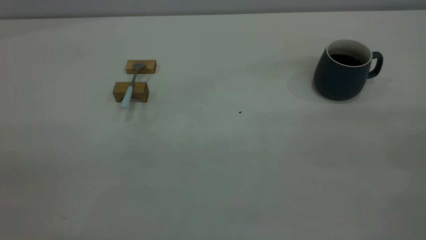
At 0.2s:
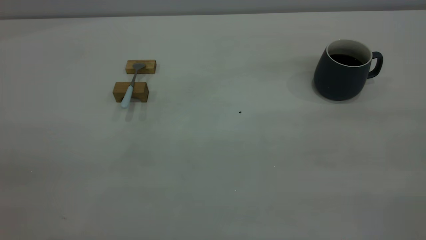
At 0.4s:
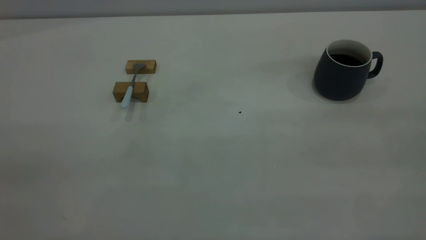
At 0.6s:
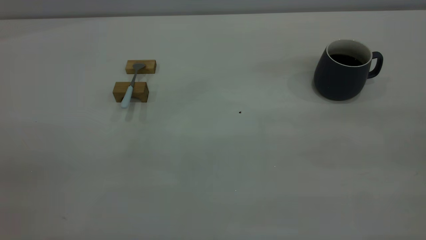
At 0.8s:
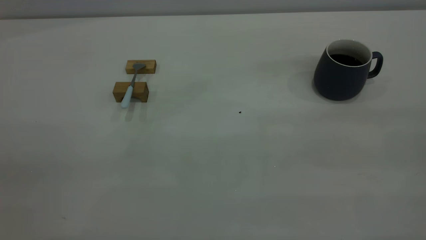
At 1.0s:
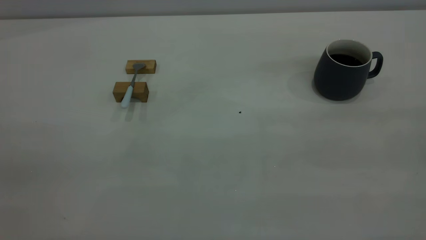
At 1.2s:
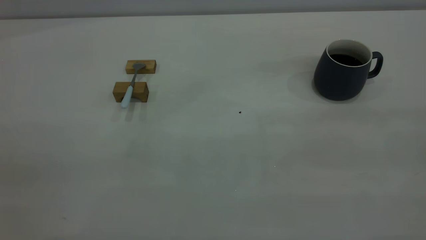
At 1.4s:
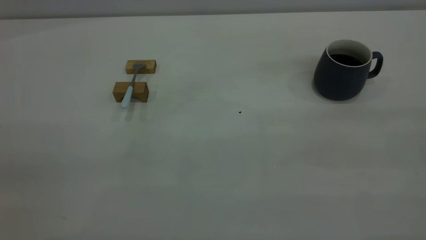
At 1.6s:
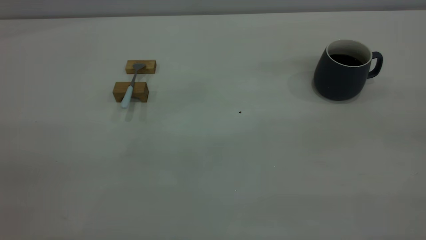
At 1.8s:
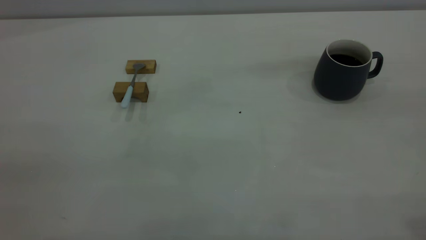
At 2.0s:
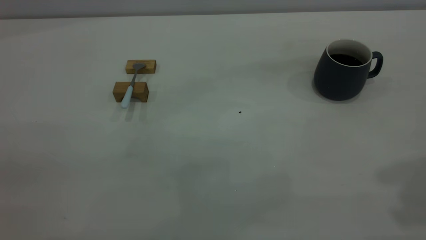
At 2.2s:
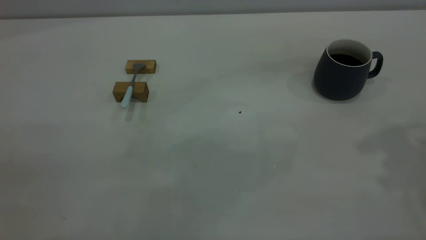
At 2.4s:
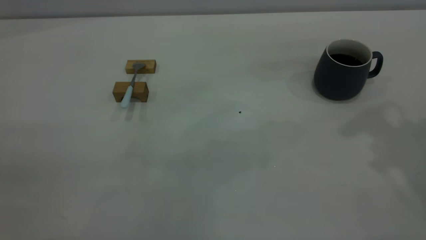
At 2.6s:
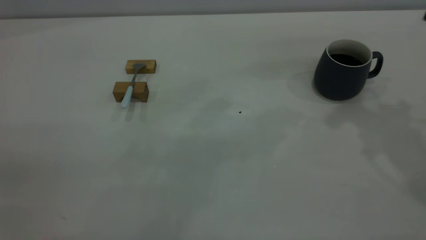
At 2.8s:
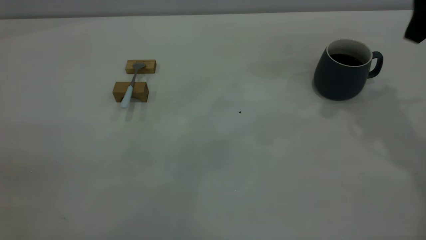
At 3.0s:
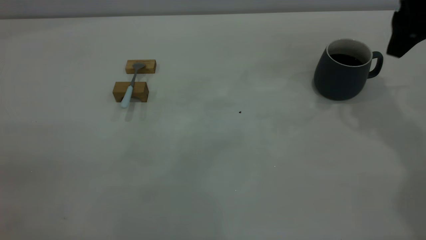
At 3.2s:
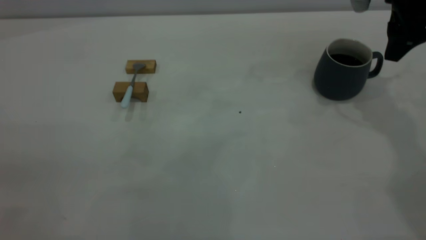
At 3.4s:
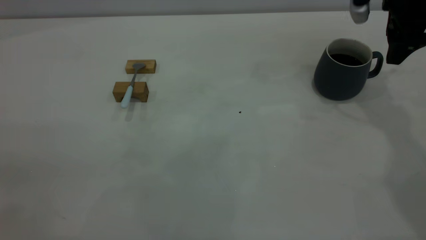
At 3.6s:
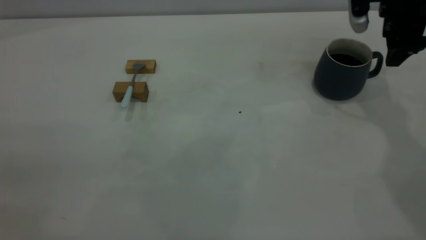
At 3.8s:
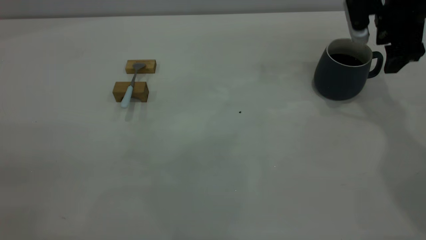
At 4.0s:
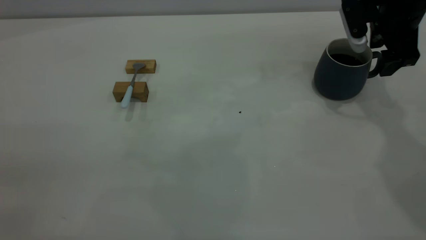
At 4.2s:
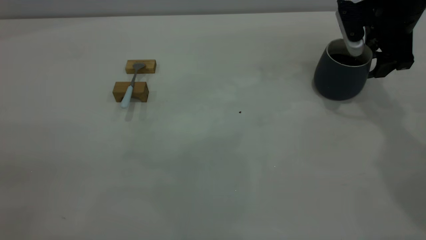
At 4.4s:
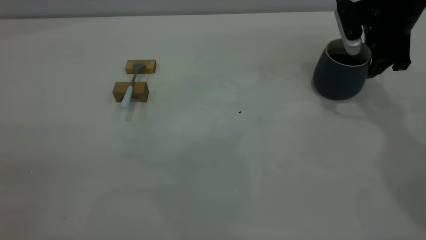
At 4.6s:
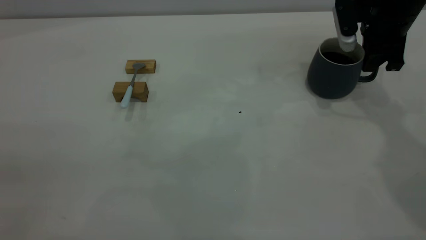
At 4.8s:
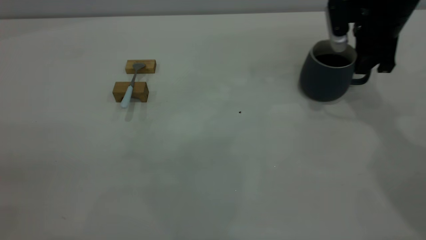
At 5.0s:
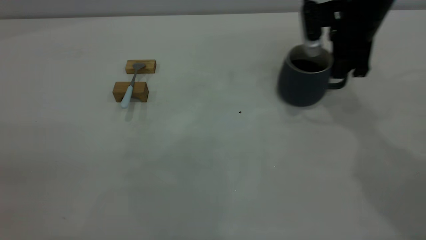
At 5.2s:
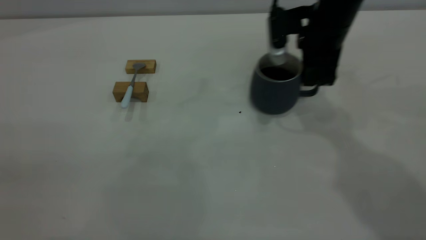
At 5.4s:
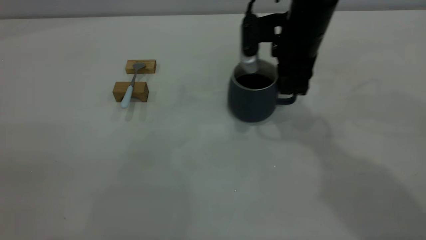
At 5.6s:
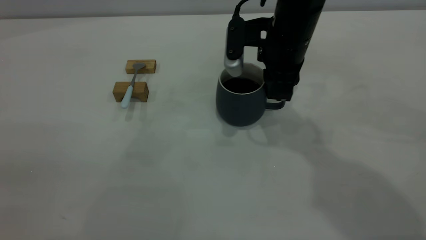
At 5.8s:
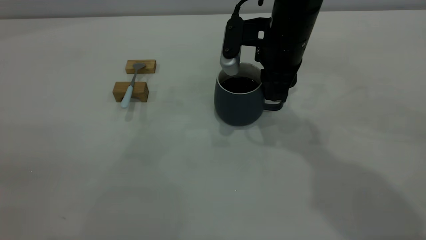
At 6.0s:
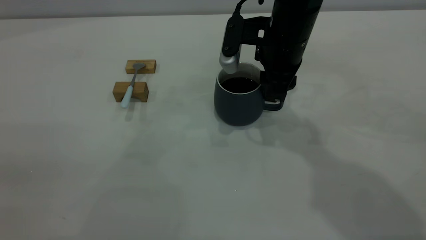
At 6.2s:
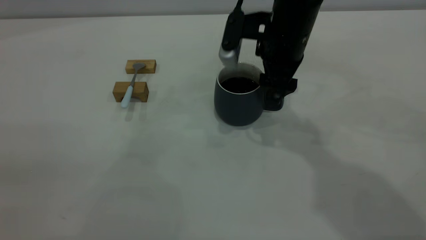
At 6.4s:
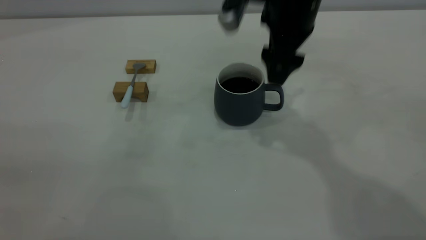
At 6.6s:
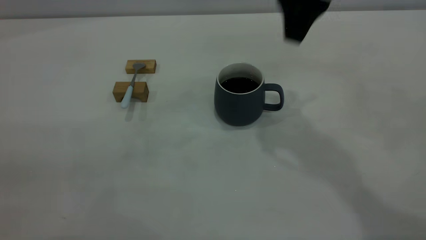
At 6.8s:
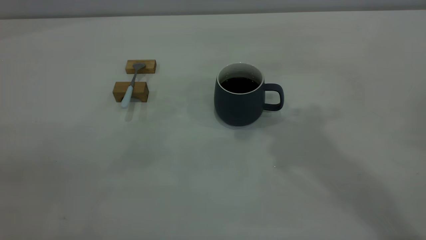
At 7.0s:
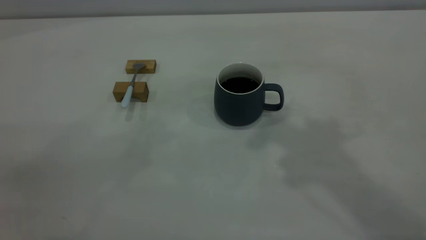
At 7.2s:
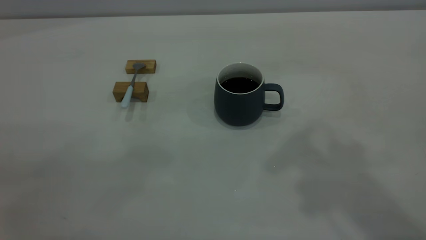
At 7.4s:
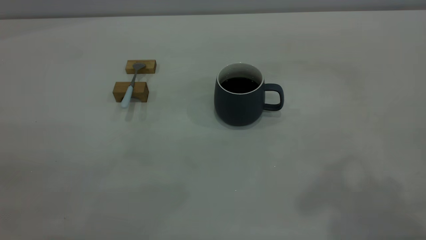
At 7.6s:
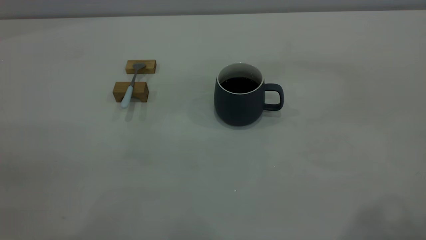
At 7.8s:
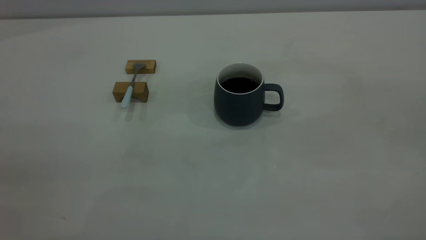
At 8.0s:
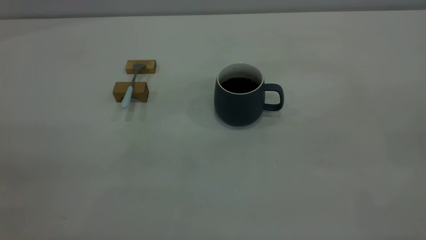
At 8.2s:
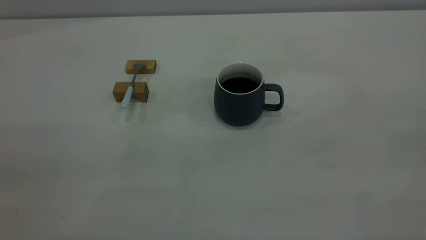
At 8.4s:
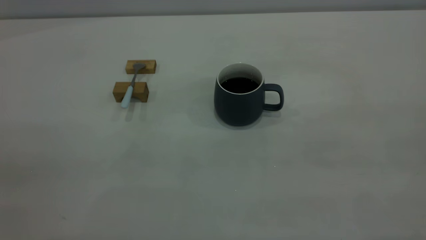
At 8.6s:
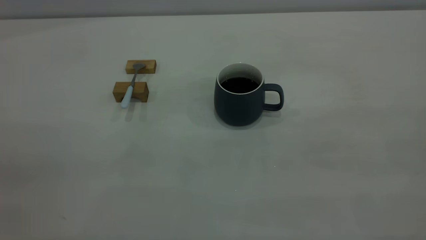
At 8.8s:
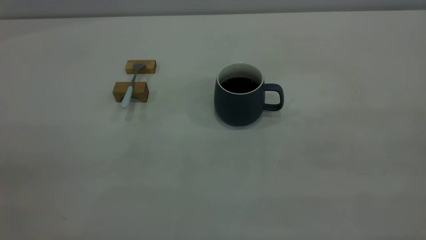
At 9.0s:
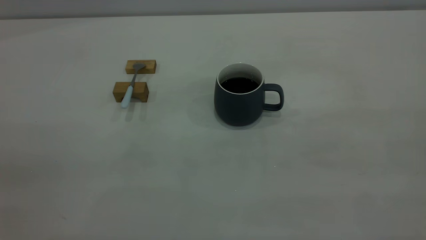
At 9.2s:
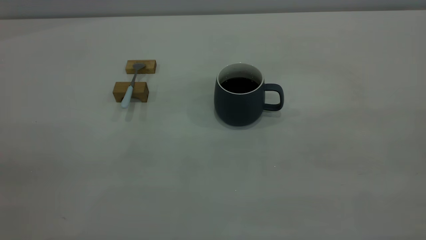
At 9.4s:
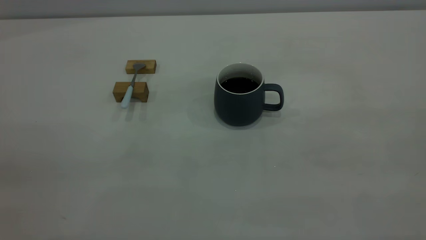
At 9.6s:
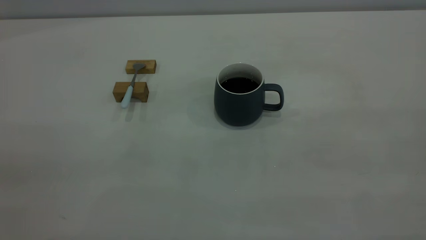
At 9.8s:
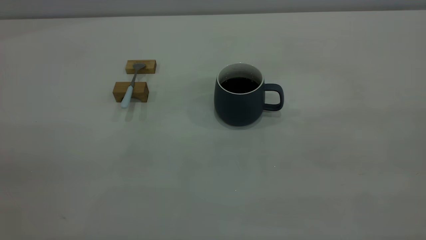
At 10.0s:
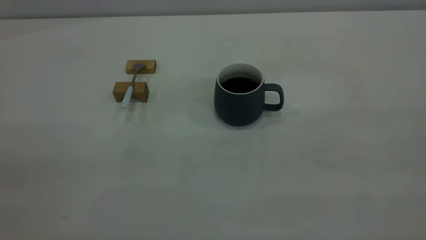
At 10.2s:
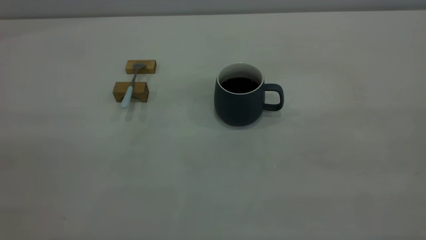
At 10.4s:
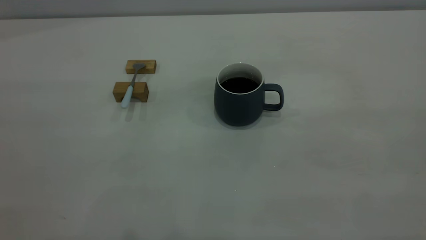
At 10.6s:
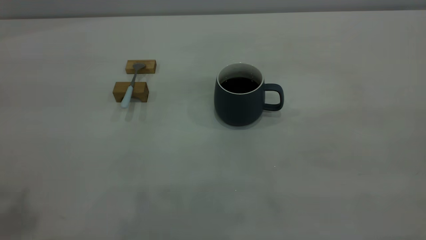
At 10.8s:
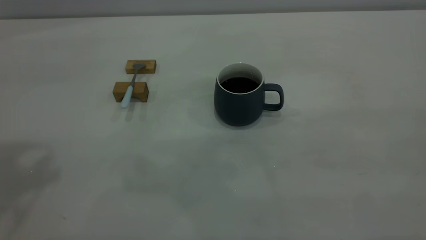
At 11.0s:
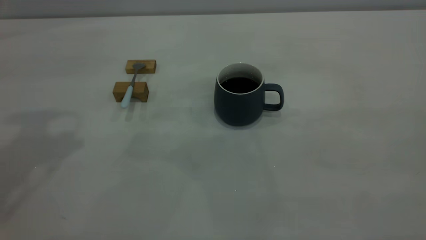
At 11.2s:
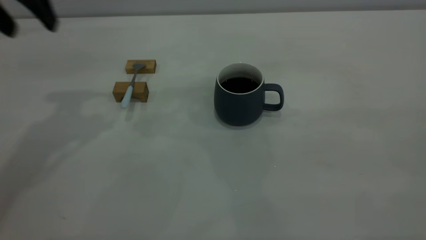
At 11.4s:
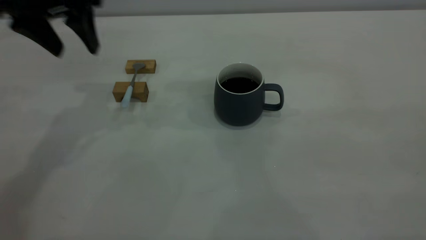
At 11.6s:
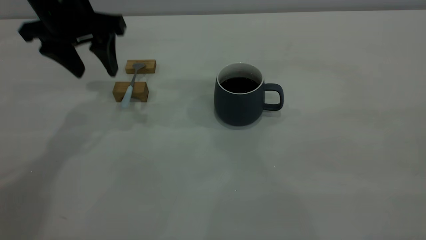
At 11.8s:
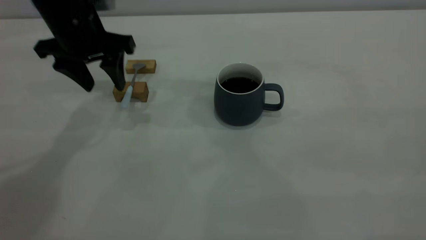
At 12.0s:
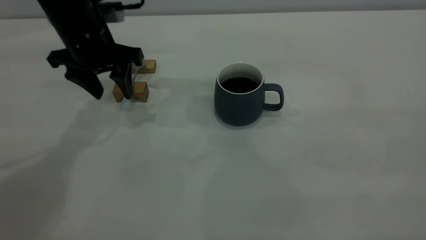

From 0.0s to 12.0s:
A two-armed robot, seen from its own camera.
Step, from 0.0s to 6.4s: Move the cup with coffee to the center of view.
From 1.6s to 3.0s: The right gripper moves forward and downward, some 40 cm.
From 3.0s to 4.4s: The right gripper shifts approximately 10 cm downward, and closes its fingers.
From 4.4s to 6.0s: The right gripper goes about 20 cm to the left.
From 6.0s to 7.6s: The right gripper moves upward, backward and to the right, approximately 40 cm, and opens its fingers.
From 10.4s to 12.0s: The left gripper is displaced forward and downward by approximately 40 cm.

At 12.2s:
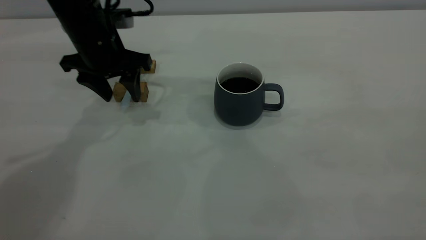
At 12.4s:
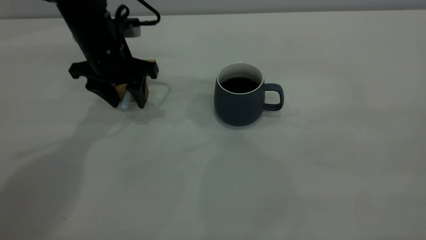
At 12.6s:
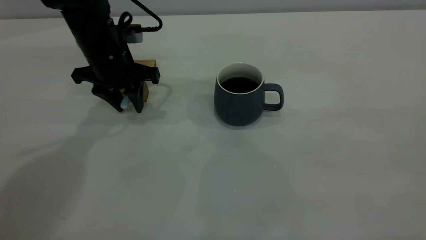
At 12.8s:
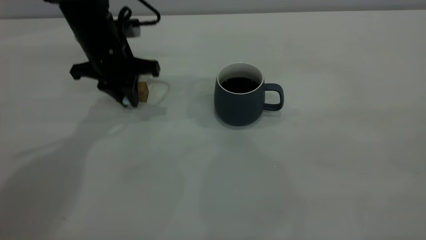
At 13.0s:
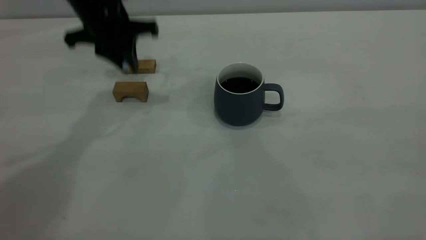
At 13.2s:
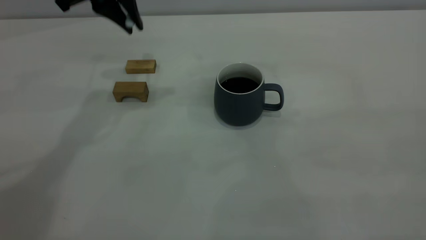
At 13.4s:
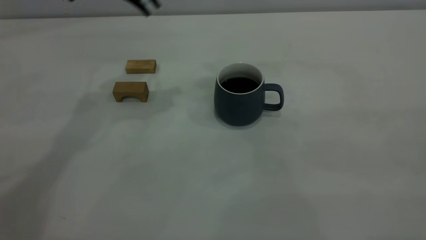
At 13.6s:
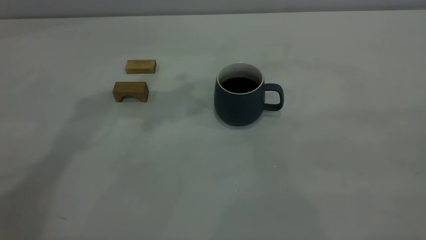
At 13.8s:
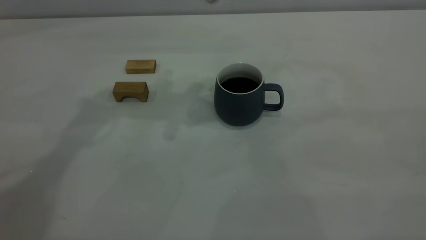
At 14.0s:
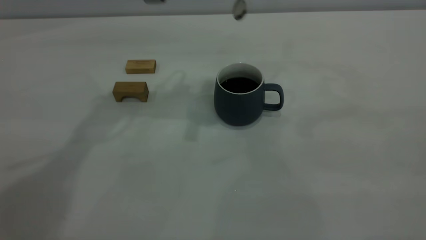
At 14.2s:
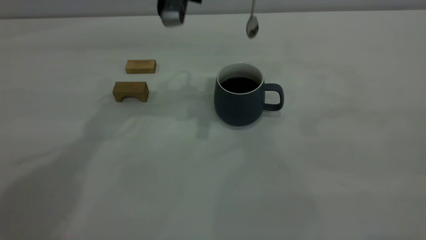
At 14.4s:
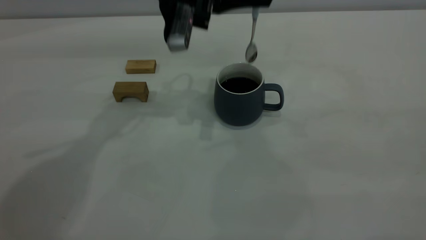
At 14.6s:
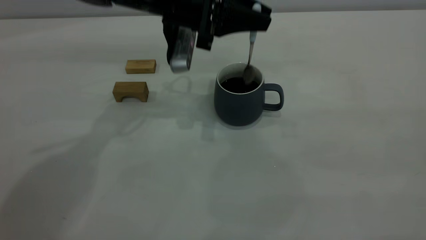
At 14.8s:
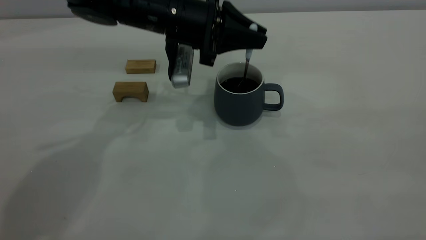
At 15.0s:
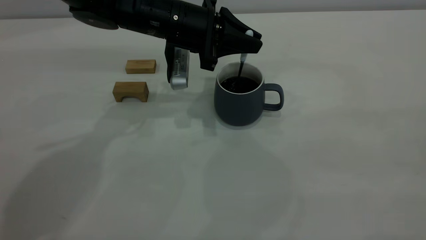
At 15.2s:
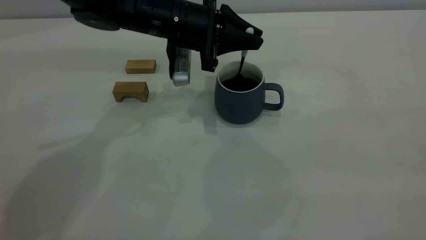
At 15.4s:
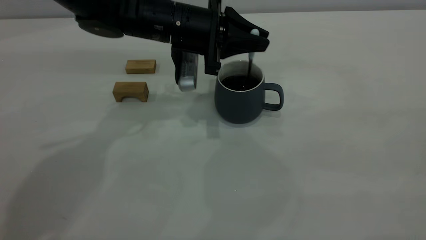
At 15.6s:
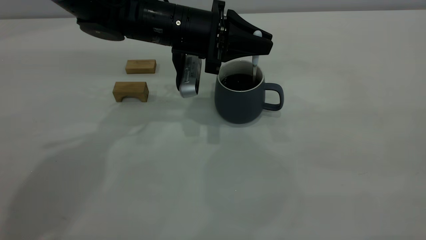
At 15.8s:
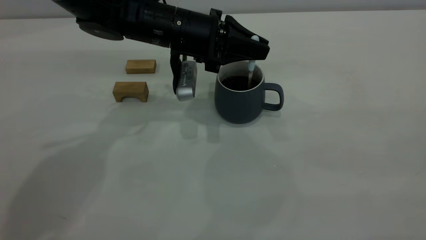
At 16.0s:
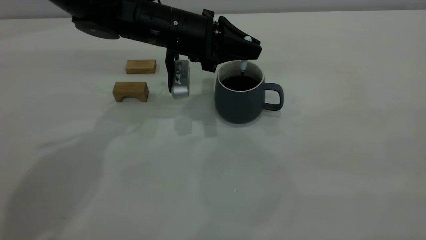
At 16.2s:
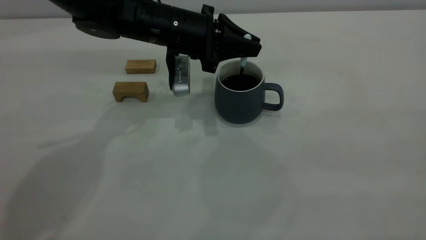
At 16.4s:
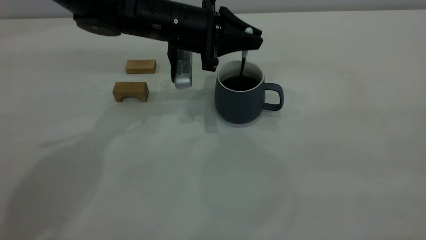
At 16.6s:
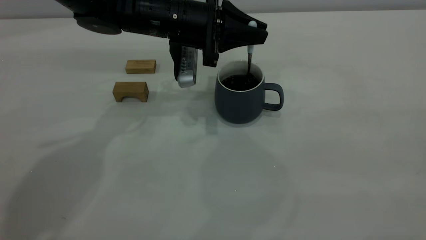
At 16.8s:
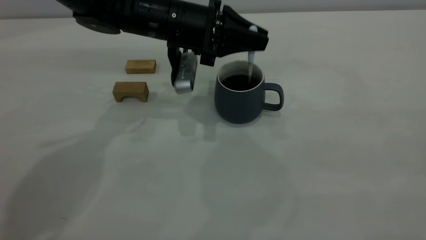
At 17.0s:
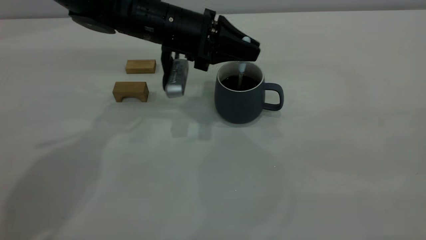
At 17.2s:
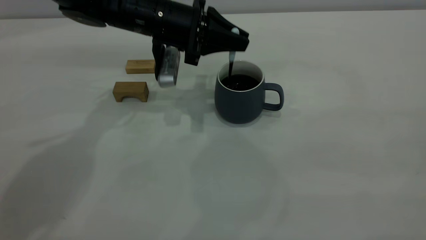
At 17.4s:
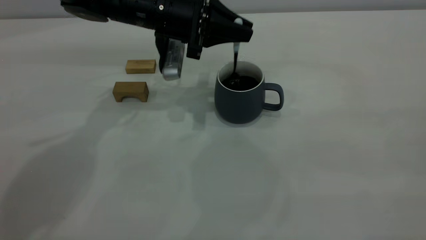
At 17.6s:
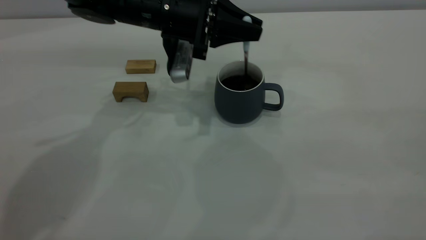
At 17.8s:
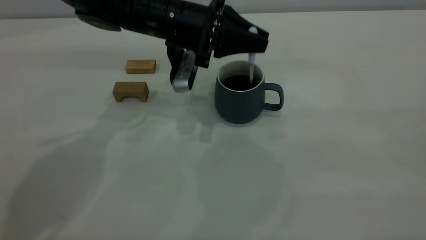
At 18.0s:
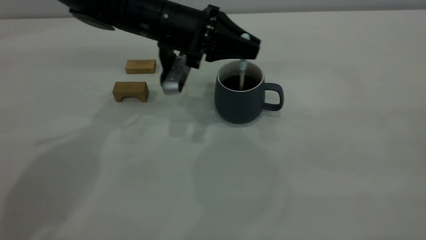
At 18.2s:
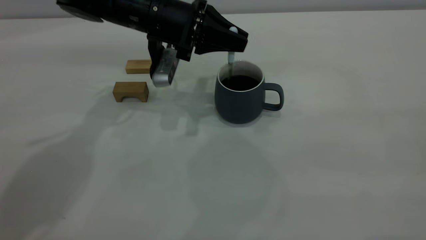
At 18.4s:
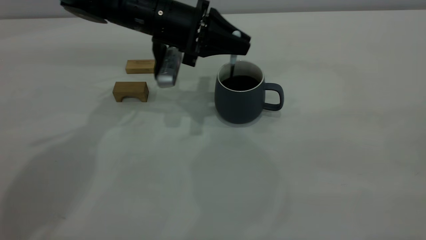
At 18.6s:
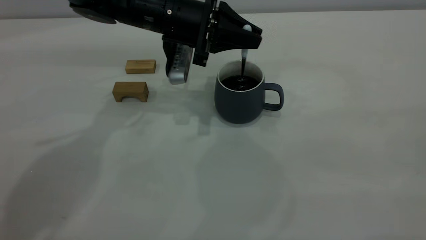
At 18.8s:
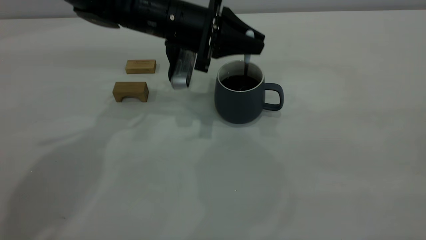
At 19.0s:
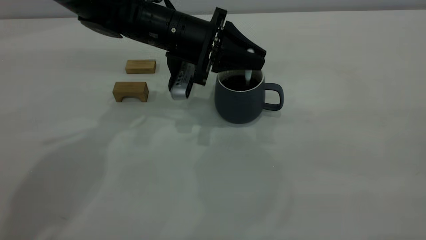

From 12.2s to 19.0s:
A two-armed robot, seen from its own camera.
From 12.2s to 13.6s: The left gripper shifts about 15 cm upward, and closes its fingers.
From 13.6s to 15.0s: The left gripper shifts some 15 cm downward.
From 15.0s to 19.0s: There are only small adjustments of the grippers.
